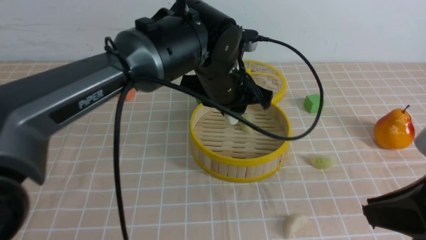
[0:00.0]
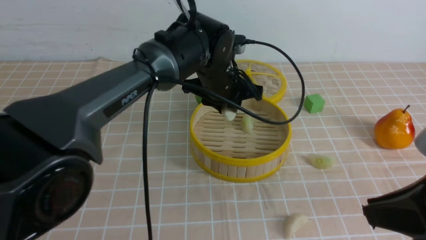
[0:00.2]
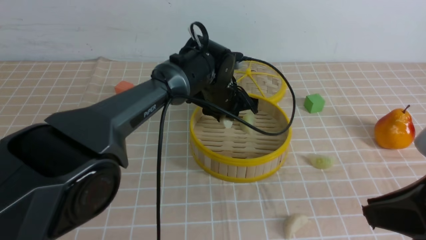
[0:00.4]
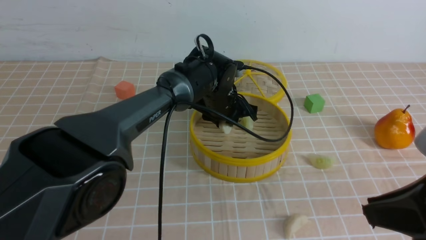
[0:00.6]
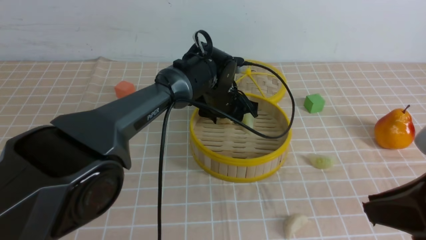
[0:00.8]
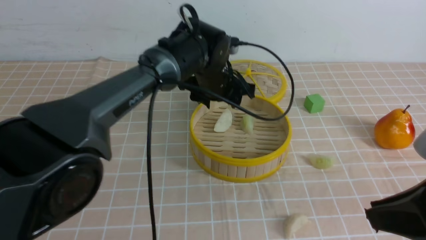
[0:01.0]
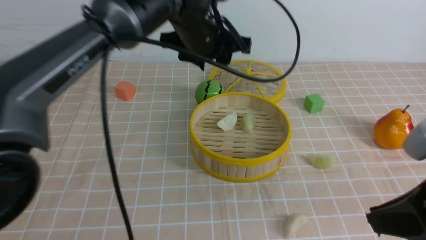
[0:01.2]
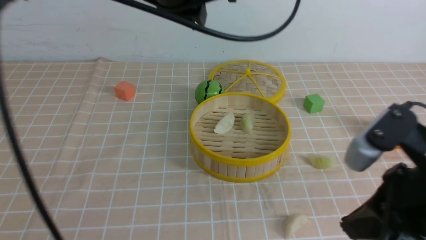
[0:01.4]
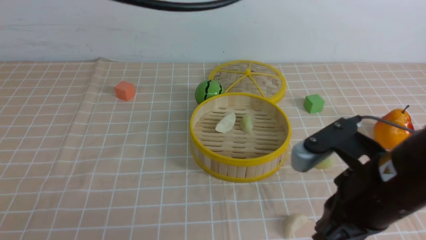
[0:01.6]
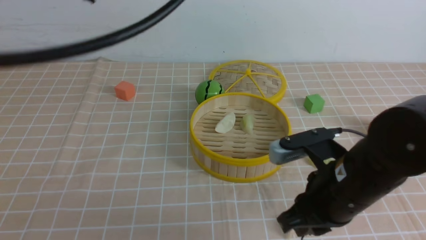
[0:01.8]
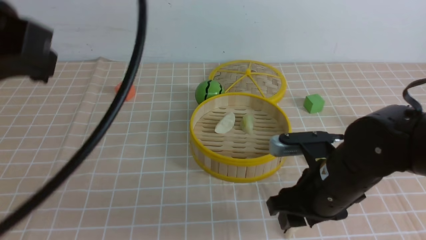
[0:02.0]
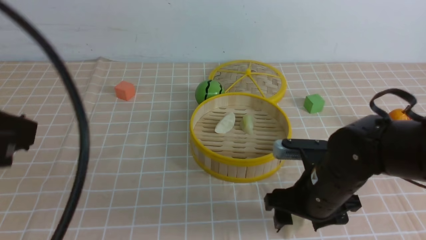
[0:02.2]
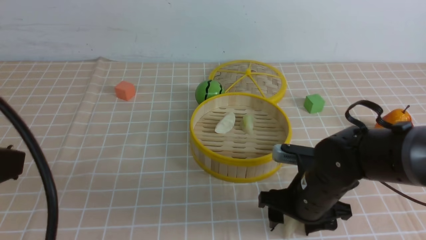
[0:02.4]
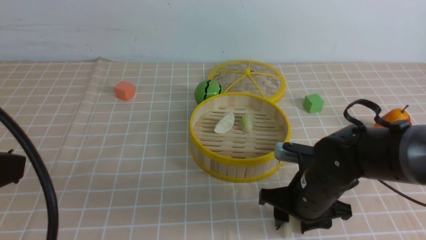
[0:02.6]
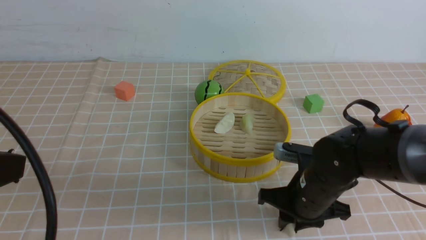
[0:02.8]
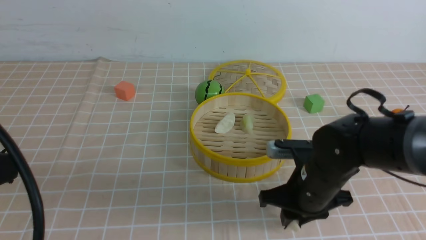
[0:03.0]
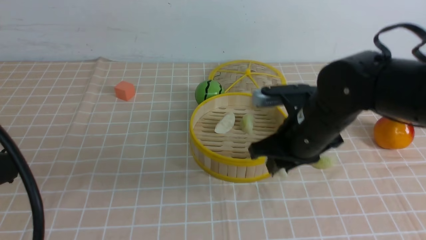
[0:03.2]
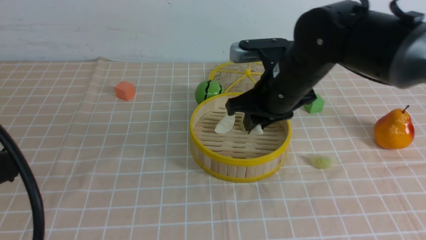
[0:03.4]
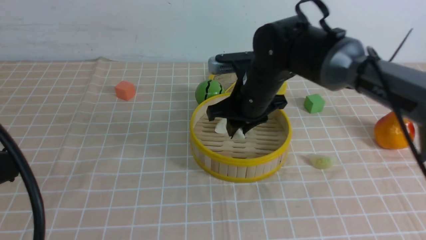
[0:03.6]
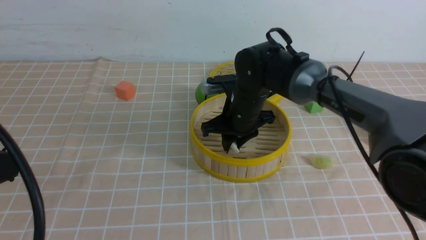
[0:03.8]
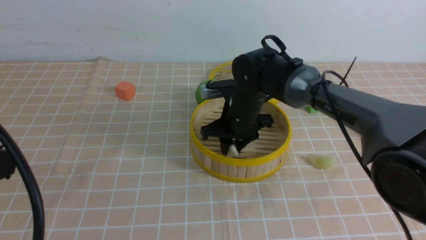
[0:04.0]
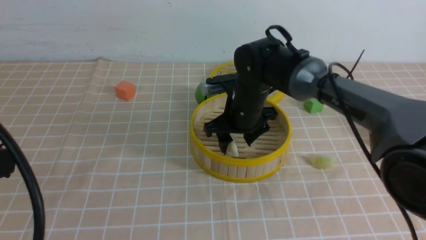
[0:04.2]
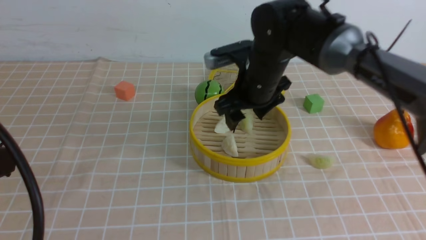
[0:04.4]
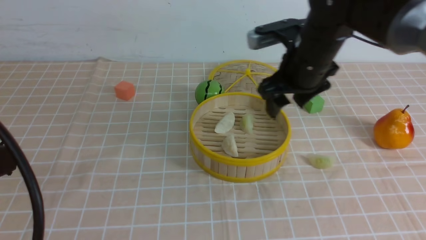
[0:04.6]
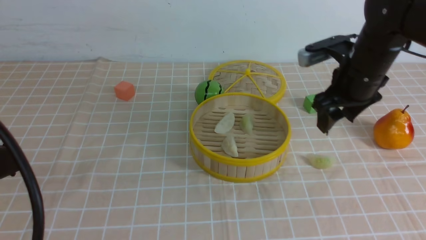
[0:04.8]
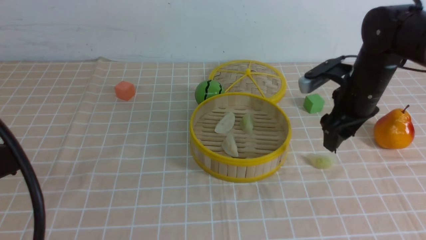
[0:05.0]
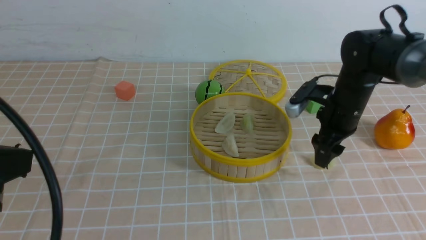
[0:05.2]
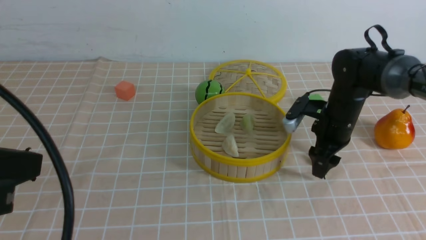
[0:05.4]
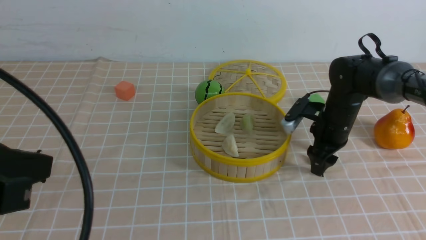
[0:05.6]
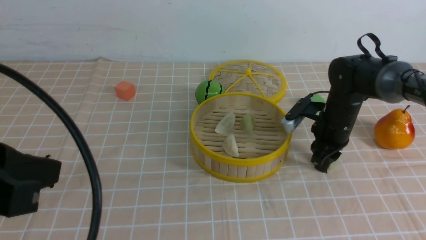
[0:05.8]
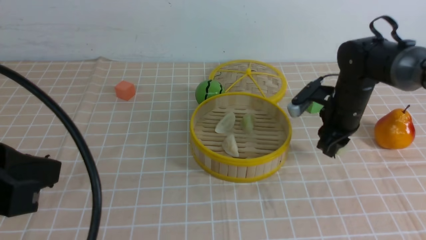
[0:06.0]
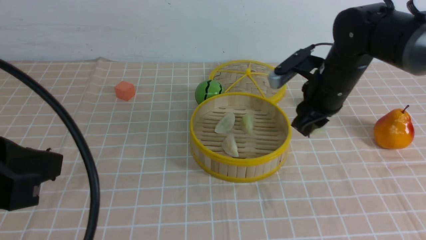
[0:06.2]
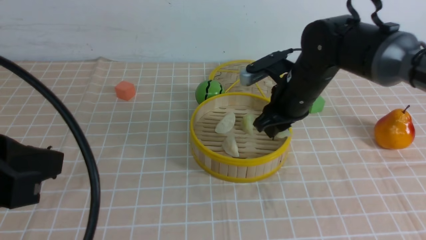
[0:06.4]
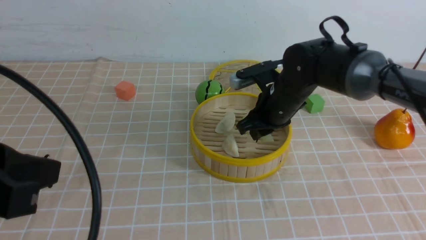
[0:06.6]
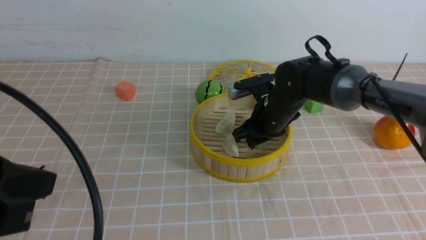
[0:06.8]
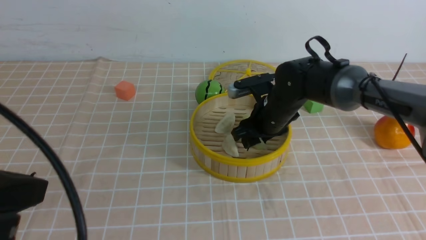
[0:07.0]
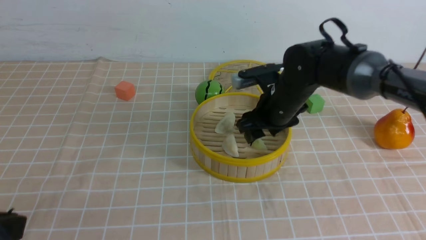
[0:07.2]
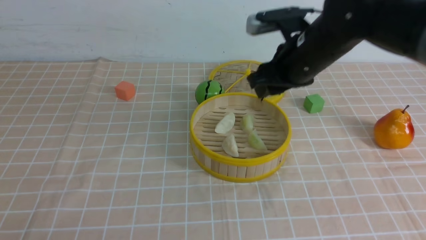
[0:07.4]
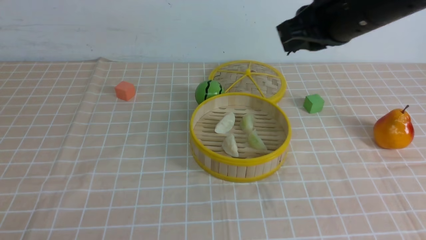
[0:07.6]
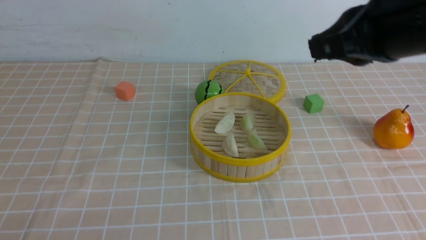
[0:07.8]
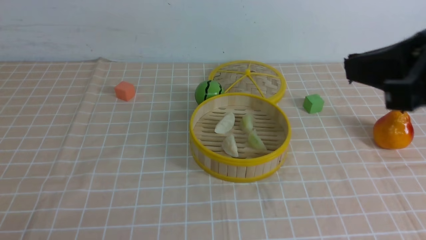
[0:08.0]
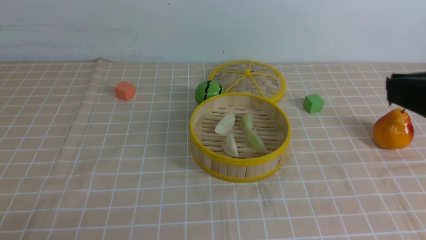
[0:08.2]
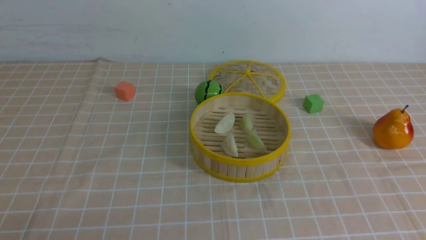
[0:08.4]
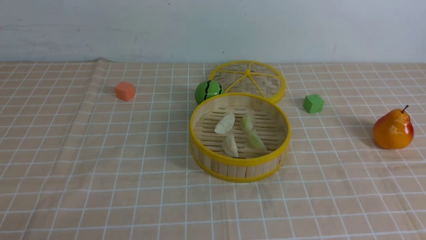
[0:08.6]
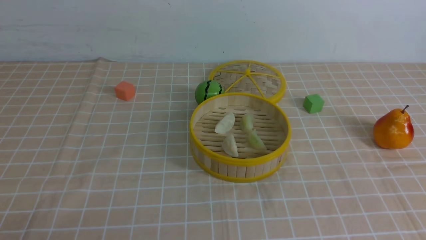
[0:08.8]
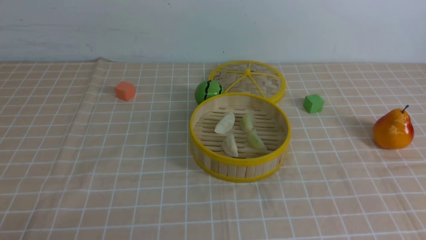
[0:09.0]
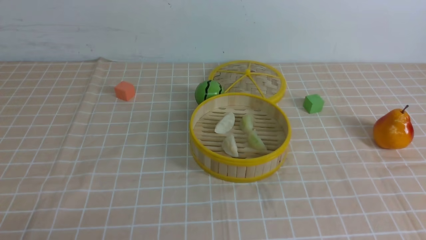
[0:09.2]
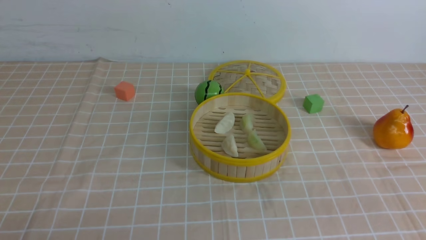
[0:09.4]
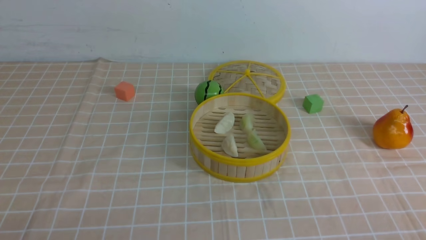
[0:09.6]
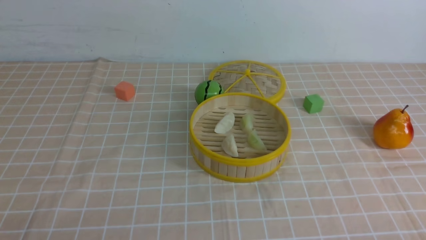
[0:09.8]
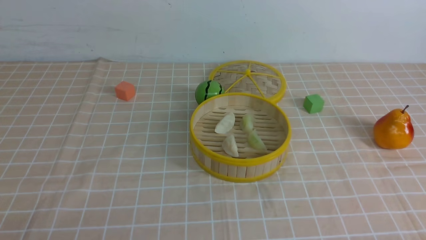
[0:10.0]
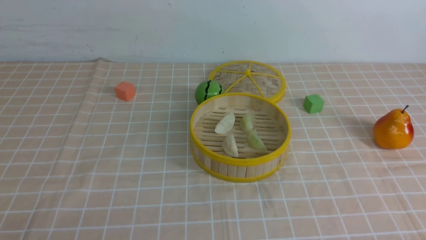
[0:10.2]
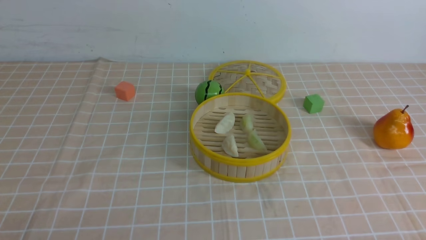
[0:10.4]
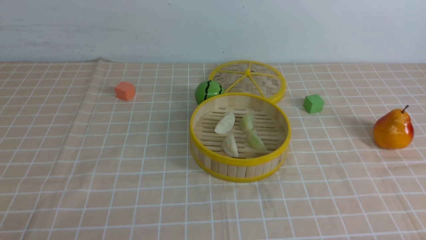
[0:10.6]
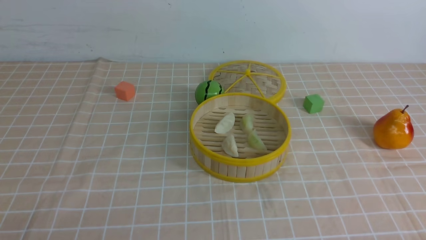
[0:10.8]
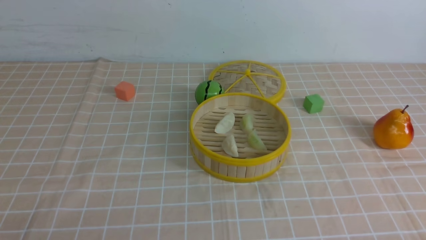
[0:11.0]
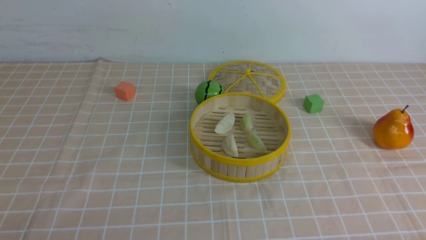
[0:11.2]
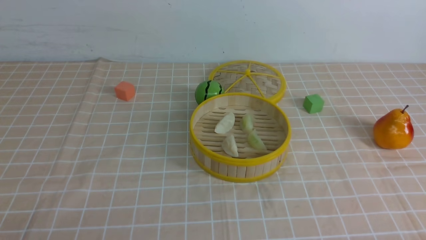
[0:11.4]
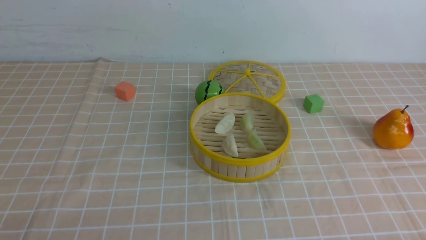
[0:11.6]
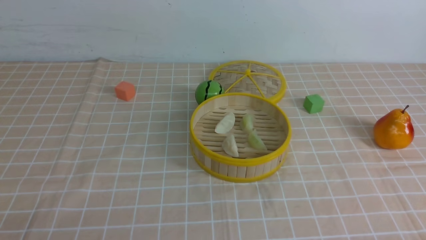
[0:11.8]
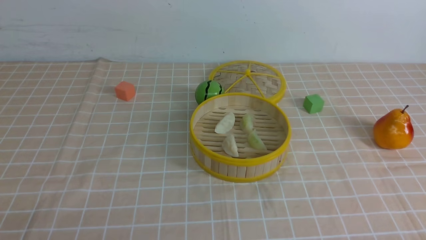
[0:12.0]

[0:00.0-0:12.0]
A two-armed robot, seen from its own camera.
Task of the whole recording: put the dumplings into the steamer on the table with the brown tablecloth.
Step, 0:00.0 to 0:00.8: use the left arm to put the dumpling into the steamer.
Step, 0:01.0 to 0:02.6: use the right arm to grab a dumpling.
Step, 0:03.0 to 0:04.2: use the right arm to put the dumpling into the steamer.
Step, 0:04.4 to 0:05.8: use the right arm to grab a dumpling.
Step, 0:06.0 to 0:07.2: use the right arm to put the dumpling into the steamer.
0:00.0 to 0:01.6: The right gripper moves to the left and forward, approximately 10 cm. The left gripper is displaced upward, to the left and backward by roughly 30 cm, and closes up.
0:01.6 to 0:03.0: The left gripper travels backward, downward and to the left by some 25 cm. The right gripper travels forward and downward by about 15 cm, and opens and closes again.
0:03.0 to 0:04.4: The right gripper travels forward and upward by approximately 15 cm, and opens up.
0:04.4 to 0:06.0: The right gripper heads to the right and downward, covering some 15 cm, and closes up.
0:06.0 to 0:07.6: The left gripper heads downward, backward and to the left, covering approximately 15 cm; the right gripper heads upward and backward, covering approximately 25 cm, and opens, then closes once more.
0:07.6 to 0:09.0: The right gripper travels backward and to the right by roughly 25 cm.

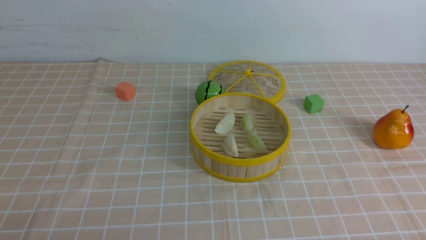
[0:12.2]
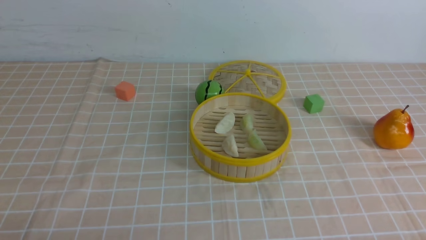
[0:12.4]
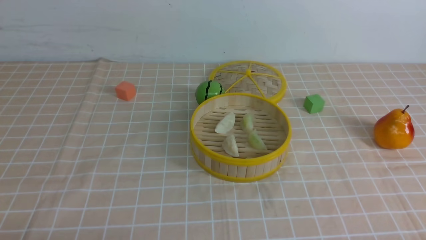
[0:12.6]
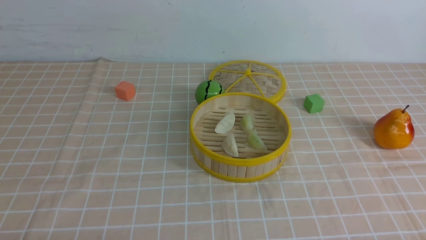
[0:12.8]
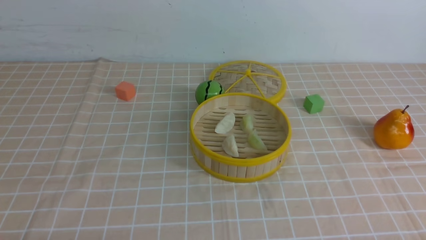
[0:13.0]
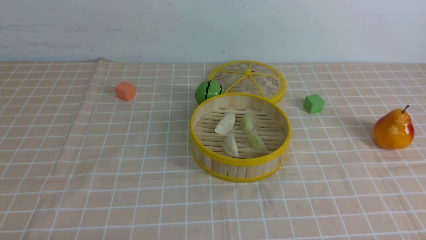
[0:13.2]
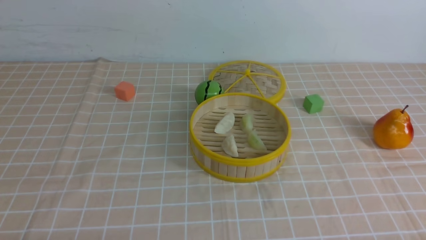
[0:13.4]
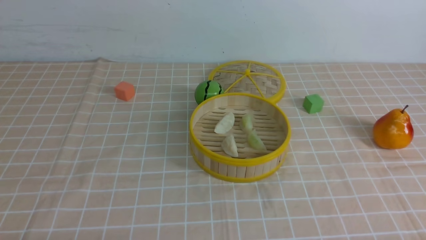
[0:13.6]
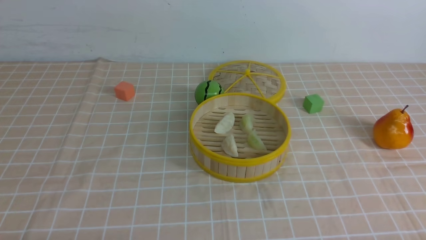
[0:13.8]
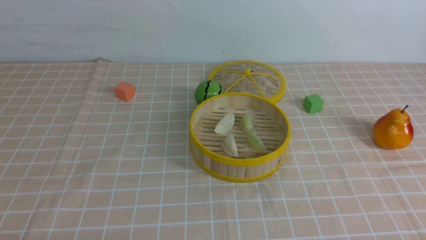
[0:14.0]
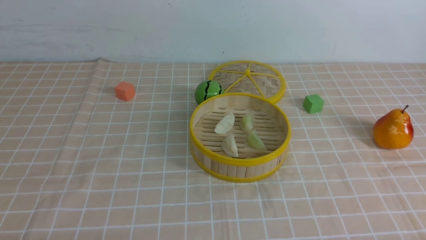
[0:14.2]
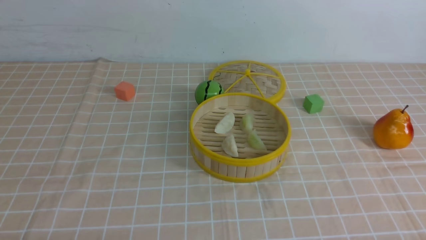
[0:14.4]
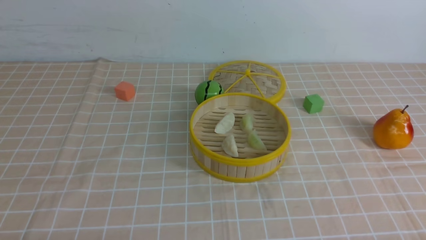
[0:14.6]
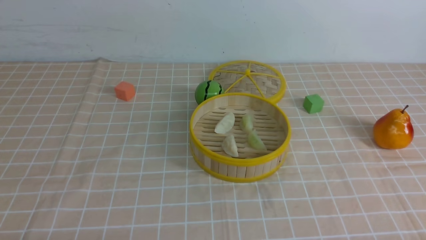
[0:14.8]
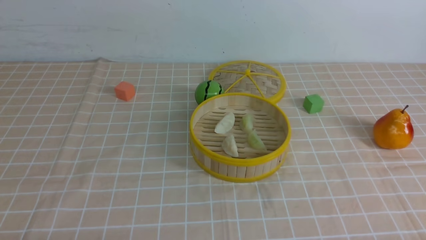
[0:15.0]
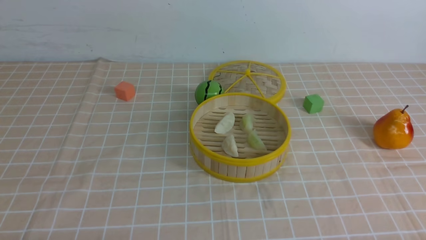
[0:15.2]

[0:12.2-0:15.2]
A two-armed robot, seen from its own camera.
Task of the whole recording: put the dumplings into the steamer on the table with the brown tablecloth.
0:13.8 to 0:15.2: Both grippers stay about where they are.
